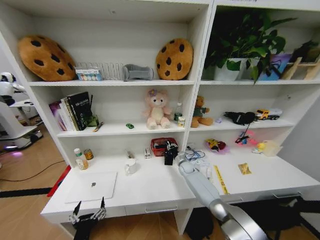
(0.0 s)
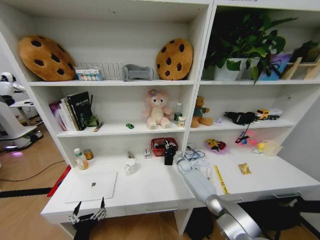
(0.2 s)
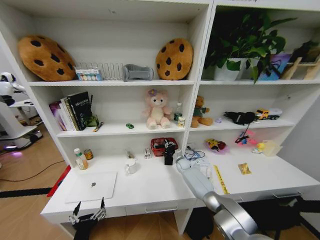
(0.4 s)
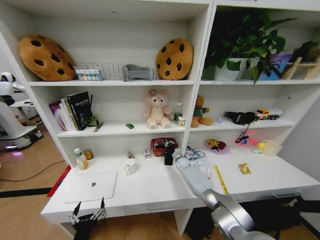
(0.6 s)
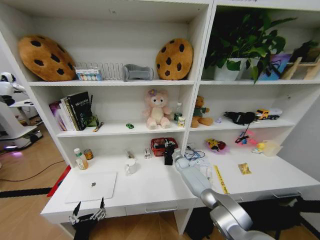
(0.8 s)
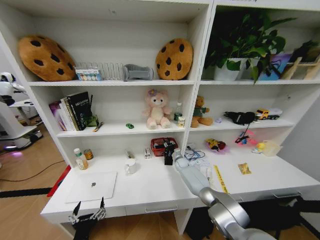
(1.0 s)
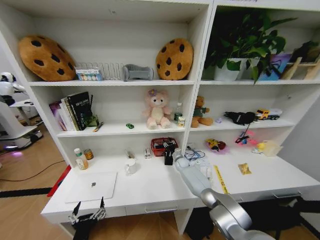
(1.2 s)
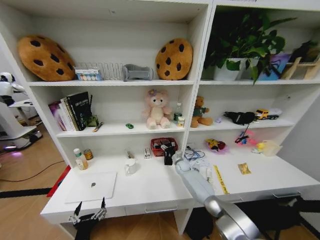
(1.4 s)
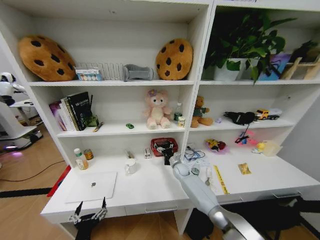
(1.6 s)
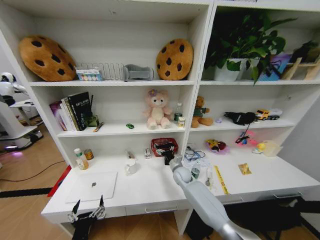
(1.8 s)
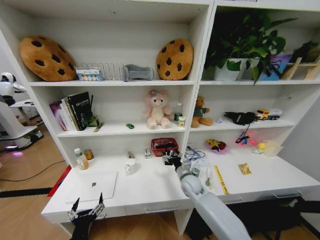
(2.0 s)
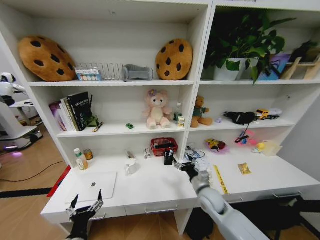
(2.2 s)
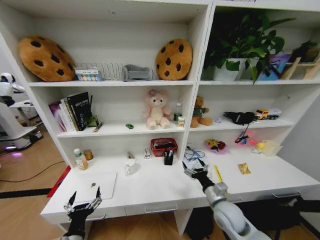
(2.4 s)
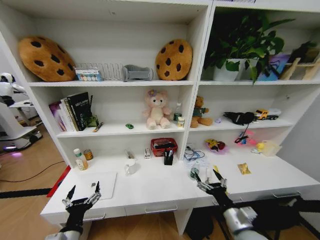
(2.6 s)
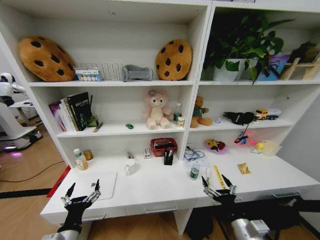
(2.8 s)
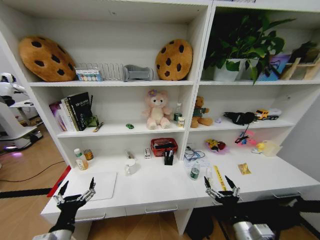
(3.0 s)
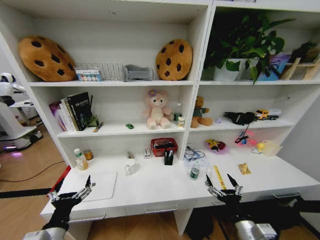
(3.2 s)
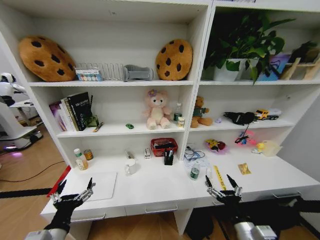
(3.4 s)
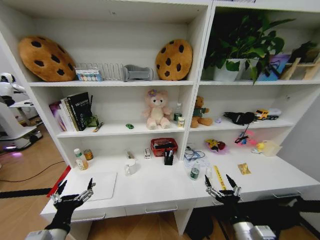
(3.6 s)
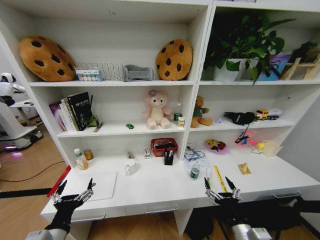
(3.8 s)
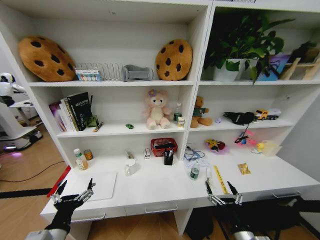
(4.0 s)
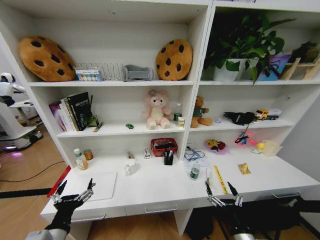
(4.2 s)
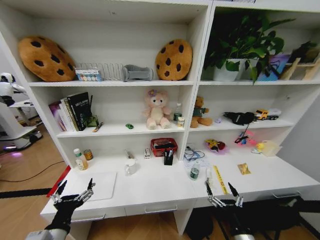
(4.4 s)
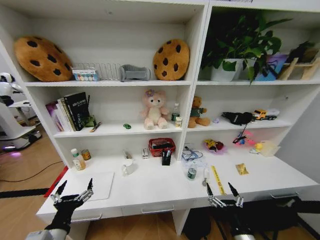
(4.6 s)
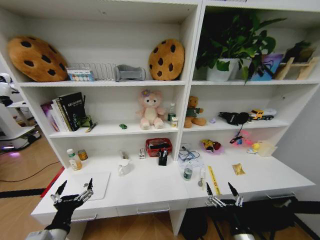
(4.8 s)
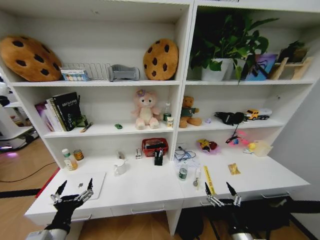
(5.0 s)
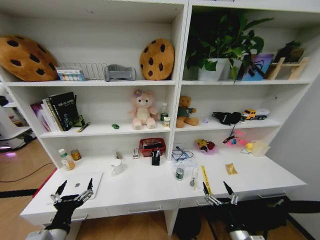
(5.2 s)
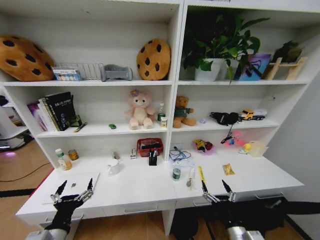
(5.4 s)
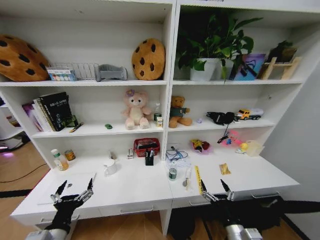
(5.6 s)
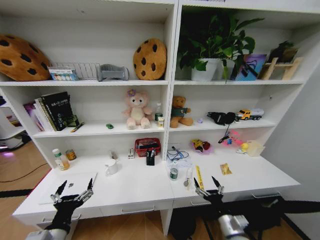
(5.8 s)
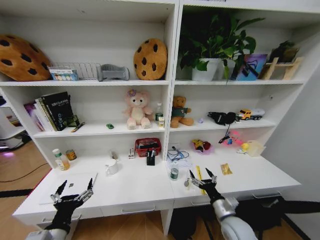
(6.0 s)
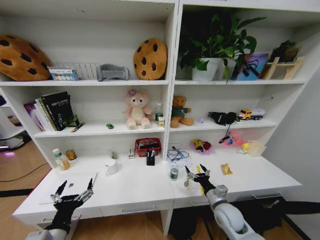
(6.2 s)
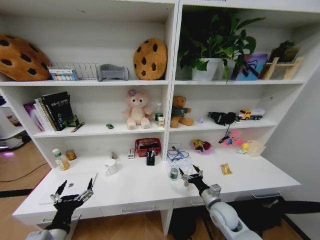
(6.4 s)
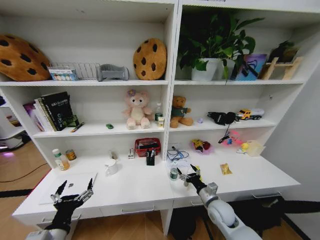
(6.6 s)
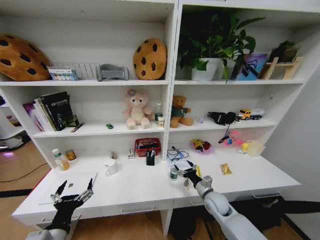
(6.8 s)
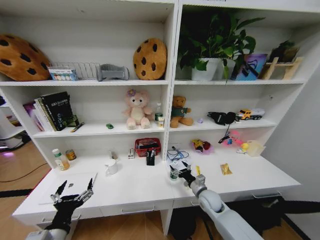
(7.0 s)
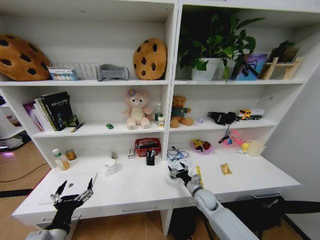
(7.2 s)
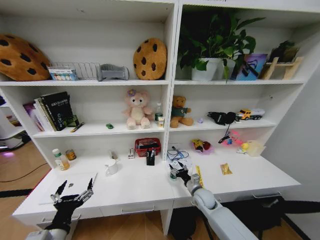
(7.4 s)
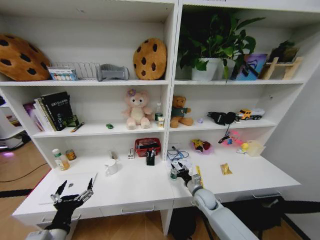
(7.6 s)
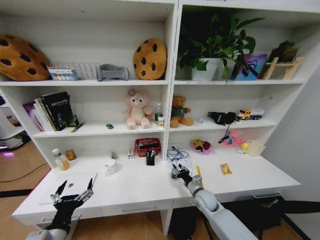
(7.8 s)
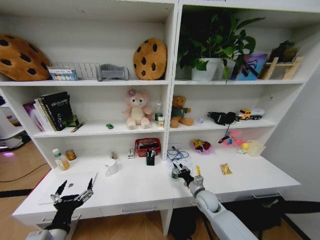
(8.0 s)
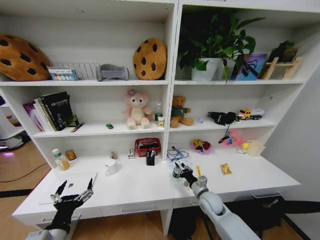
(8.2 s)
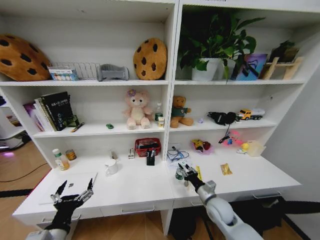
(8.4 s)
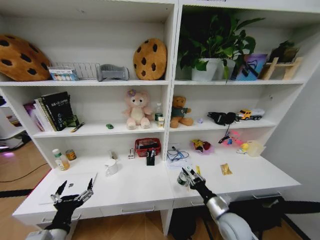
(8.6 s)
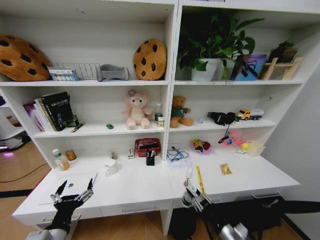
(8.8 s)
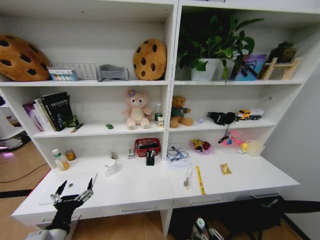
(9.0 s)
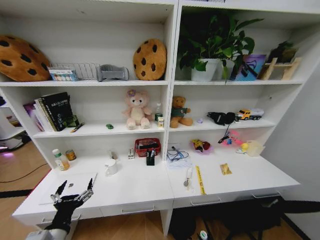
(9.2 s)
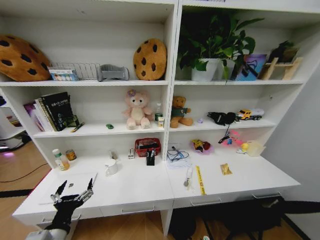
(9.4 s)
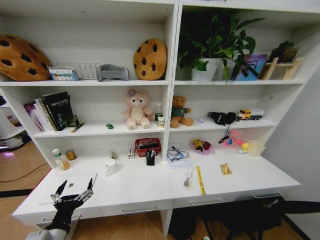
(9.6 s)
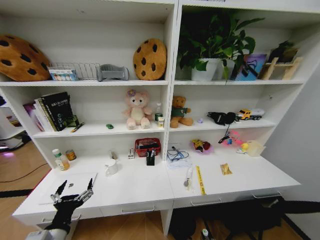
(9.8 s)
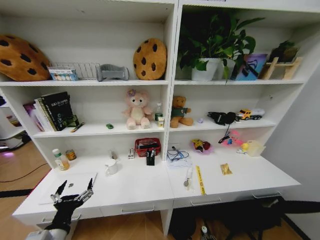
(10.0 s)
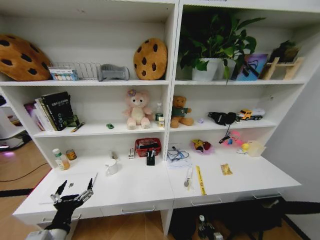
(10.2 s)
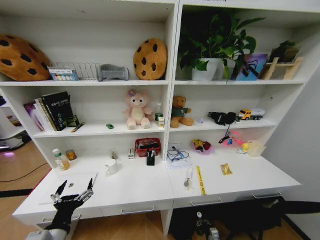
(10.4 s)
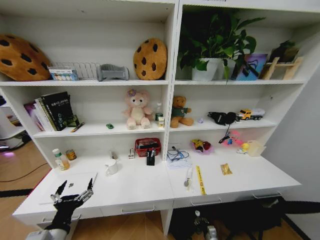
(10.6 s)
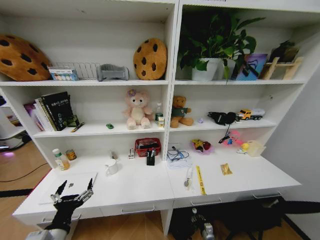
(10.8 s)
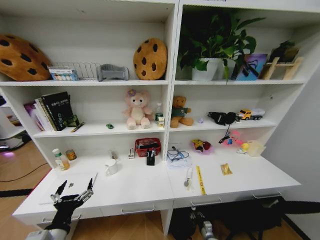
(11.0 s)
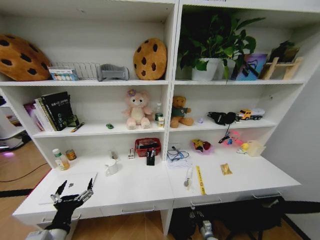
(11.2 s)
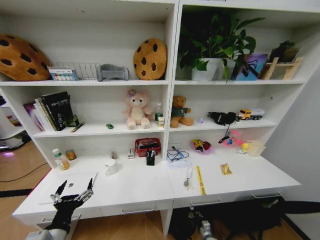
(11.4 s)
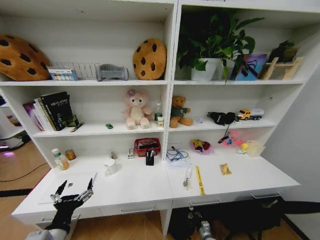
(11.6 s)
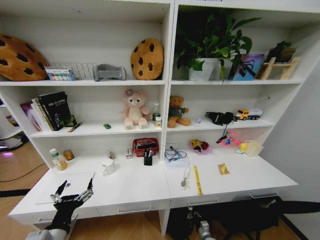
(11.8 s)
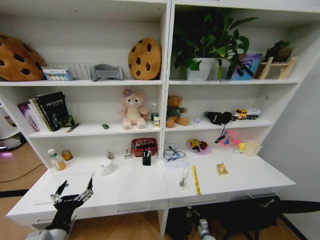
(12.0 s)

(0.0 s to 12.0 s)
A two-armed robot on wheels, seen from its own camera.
Task of the whole recording: Organize the objects on the table.
0.0 s - 1.6 s: The right gripper changes place by approximately 5 cm, and opens.
1.6 s - 3.0 s: The right gripper shifts about 40 cm backward. Meanwhile the left gripper heads upward, covering some 10 cm.
3.0 s - 4.4 s: The grippers stay close to where they were, moving slightly.
4.4 s - 6.0 s: The right gripper shifts about 10 cm forward.
6.0 s - 7.6 s: The right gripper travels forward by roughly 15 cm, and closes up.
7.6 s - 9.0 s: The right gripper goes about 30 cm backward.
9.0 s - 10.4 s: The right gripper heads downward and forward, covering some 30 cm.
10.4 s - 12.0 s: The right gripper changes place by about 5 cm.

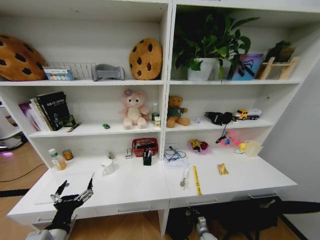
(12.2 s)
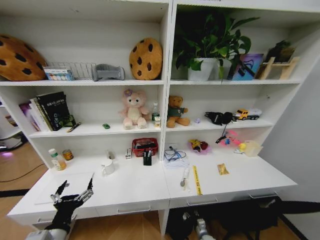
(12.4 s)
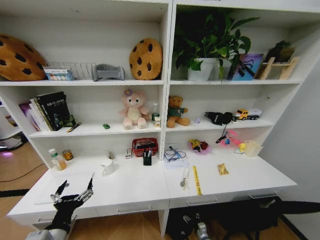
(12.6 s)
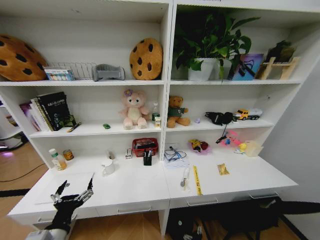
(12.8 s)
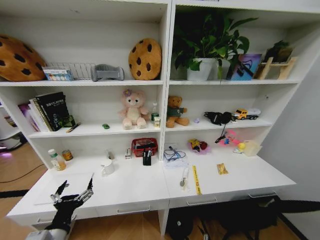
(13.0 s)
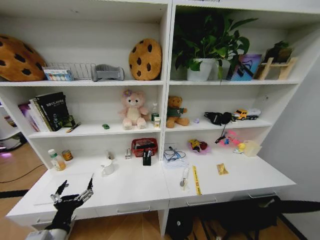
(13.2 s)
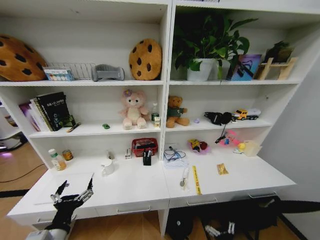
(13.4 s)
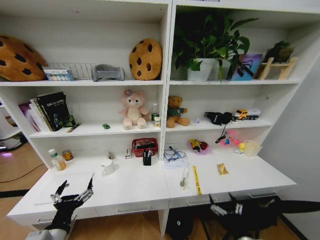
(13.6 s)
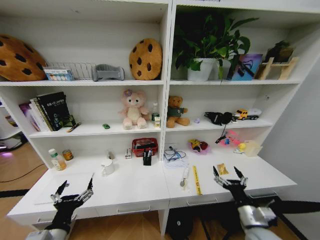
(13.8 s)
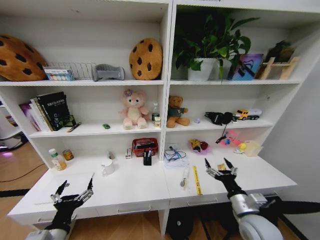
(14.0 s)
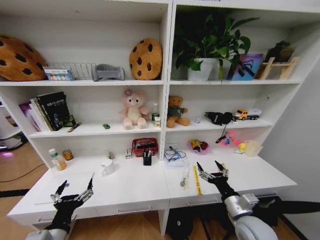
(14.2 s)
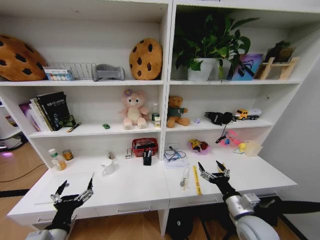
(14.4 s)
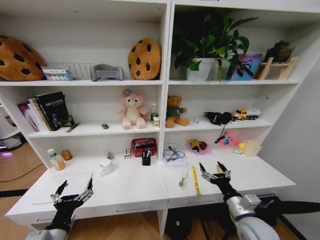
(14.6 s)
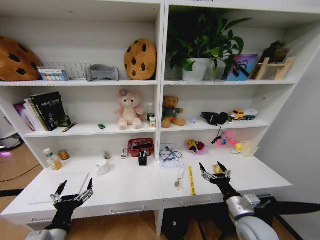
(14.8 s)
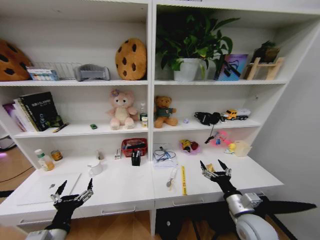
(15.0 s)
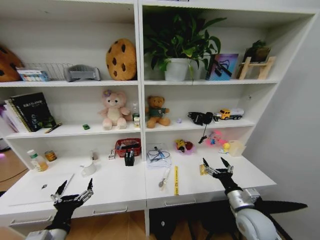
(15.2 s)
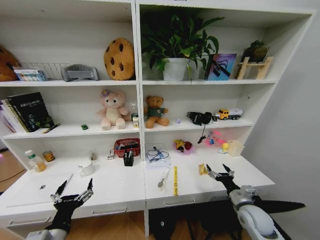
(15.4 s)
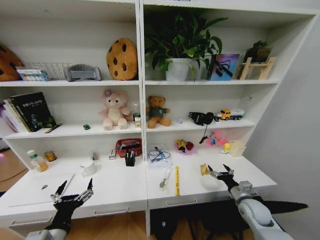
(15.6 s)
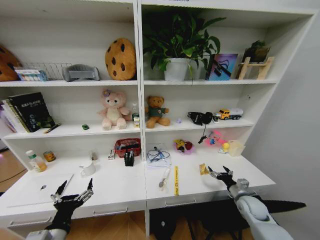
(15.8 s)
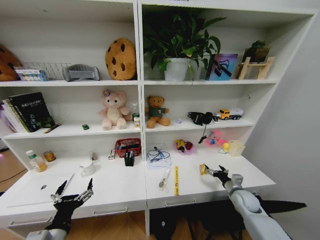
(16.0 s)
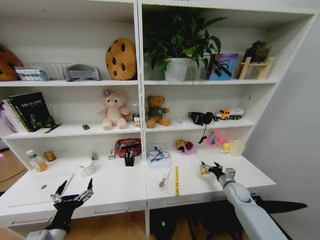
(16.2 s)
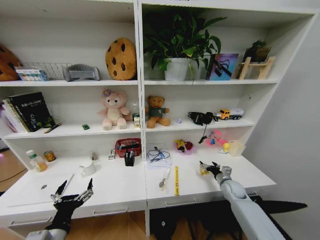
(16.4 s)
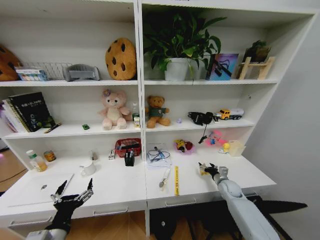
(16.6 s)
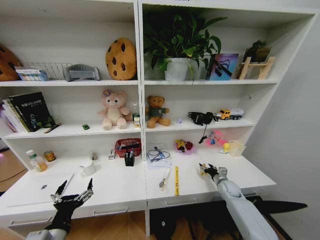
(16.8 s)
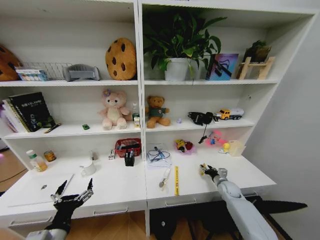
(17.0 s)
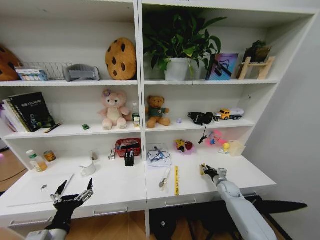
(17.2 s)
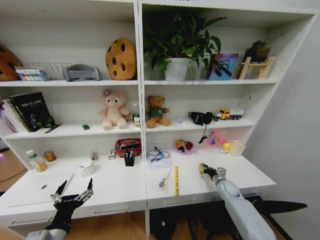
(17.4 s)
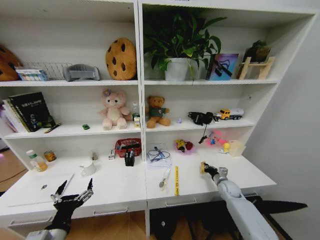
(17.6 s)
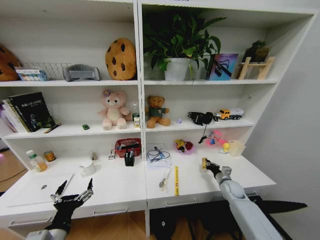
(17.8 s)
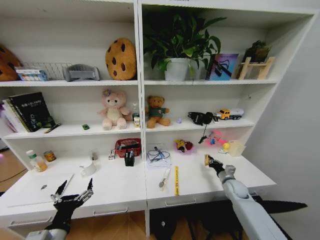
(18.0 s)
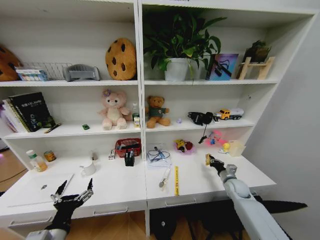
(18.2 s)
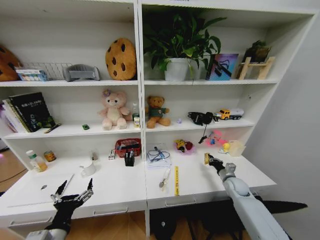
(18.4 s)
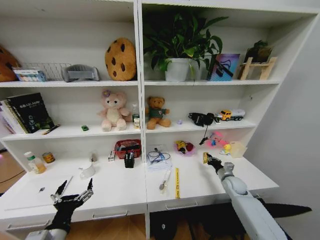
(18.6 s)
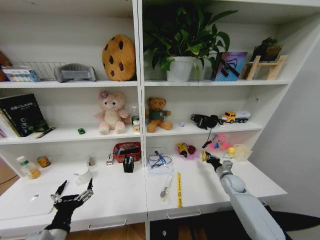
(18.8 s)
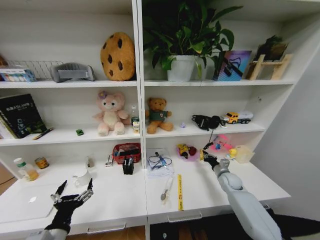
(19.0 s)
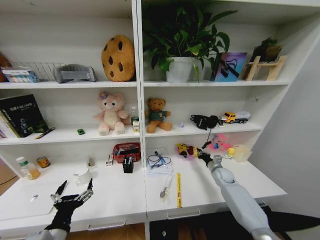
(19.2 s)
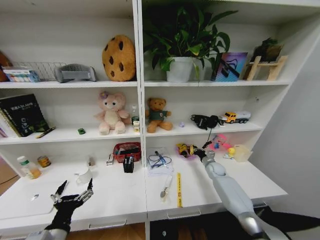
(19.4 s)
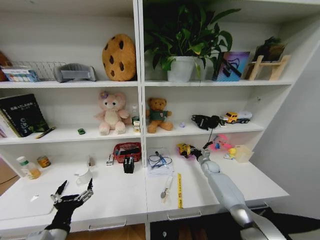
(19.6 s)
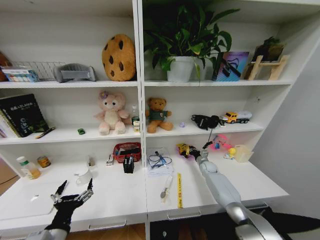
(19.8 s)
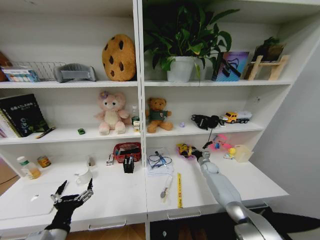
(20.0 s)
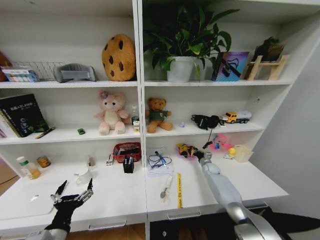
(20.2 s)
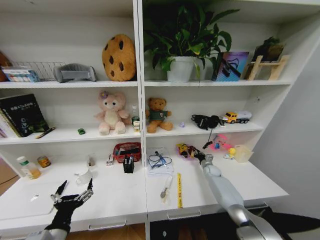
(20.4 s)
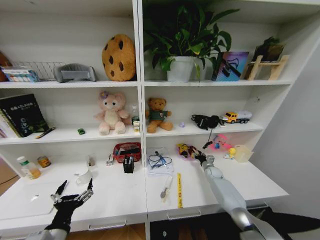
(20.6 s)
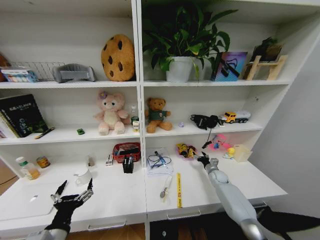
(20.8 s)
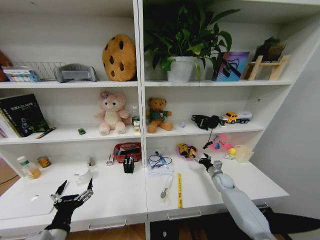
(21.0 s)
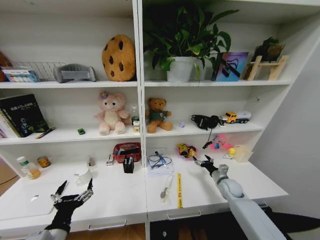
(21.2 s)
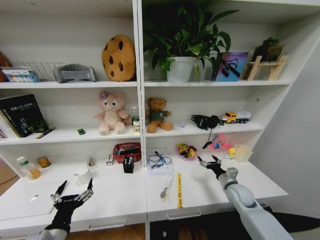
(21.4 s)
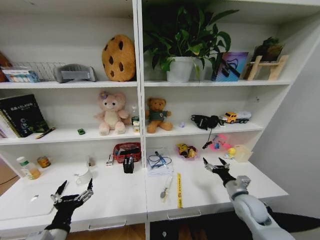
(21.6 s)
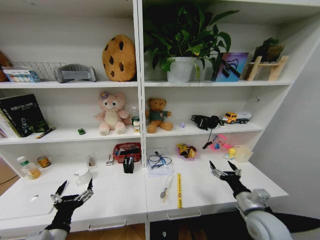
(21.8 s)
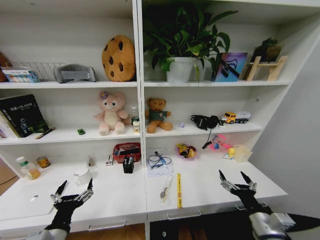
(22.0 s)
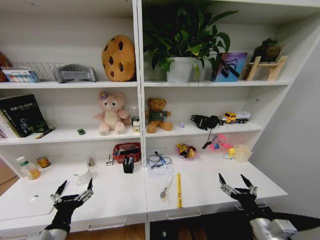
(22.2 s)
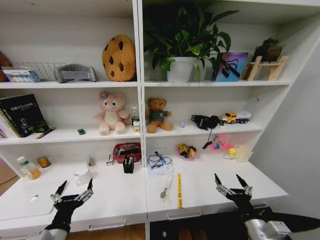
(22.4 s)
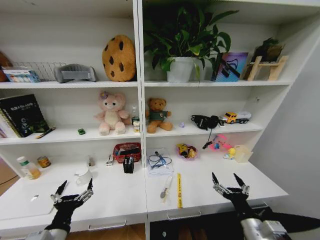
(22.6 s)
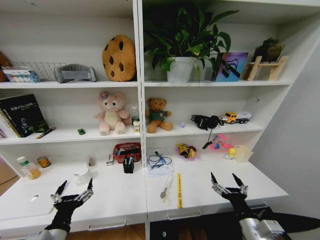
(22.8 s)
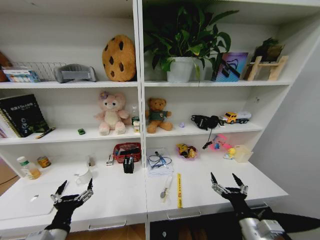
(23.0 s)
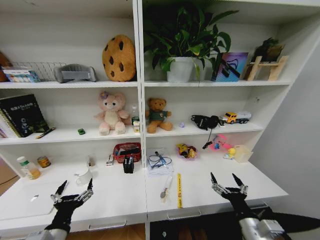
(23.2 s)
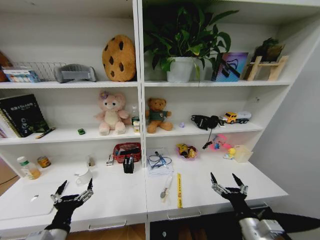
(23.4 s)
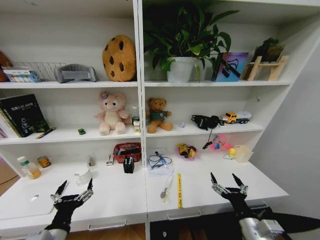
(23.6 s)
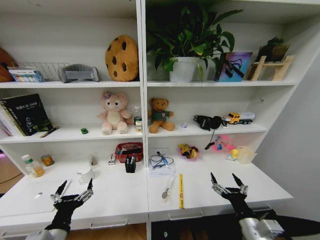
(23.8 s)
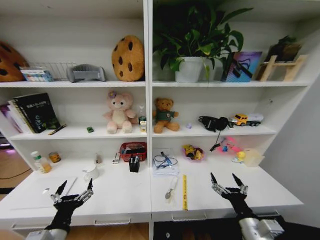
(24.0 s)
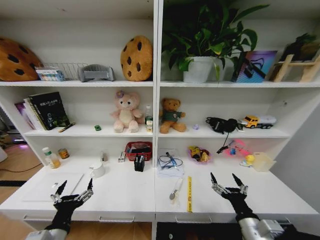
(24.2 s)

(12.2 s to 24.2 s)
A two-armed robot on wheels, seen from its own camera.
Task of the whole recording: Organize the objects on the table.
12.2 s - 13.8 s: The right gripper heads upward, covering some 35 cm, and opens.
13.8 s - 15.2 s: The right gripper travels forward by roughly 5 cm.
15.2 s - 16.6 s: The right gripper shifts roughly 20 cm forward, downward and to the right.
16.6 s - 18.2 s: The right gripper closes its fingers.
18.2 s - 19.8 s: The right gripper is displaced forward and to the left by roughly 15 cm.
19.8 s - 21.2 s: The right gripper heads backward, covering about 15 cm, and opens up.
21.2 s - 22.6 s: The right gripper goes about 25 cm backward.
